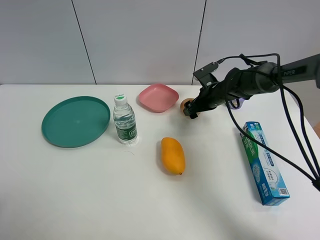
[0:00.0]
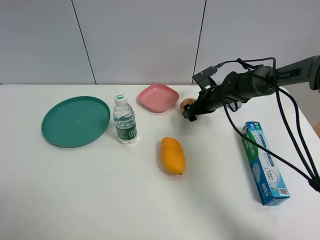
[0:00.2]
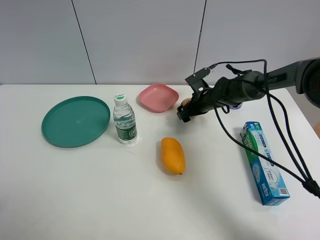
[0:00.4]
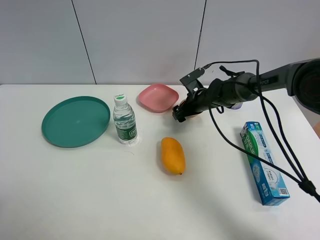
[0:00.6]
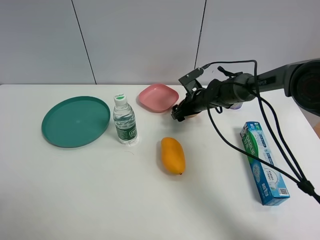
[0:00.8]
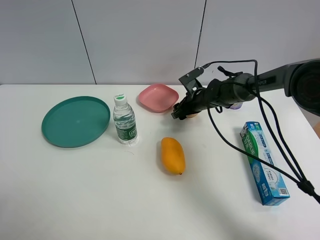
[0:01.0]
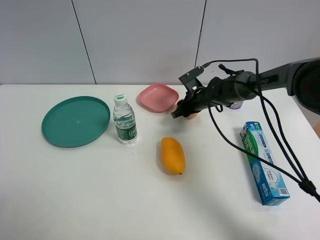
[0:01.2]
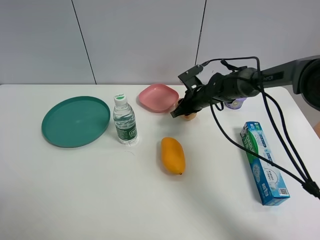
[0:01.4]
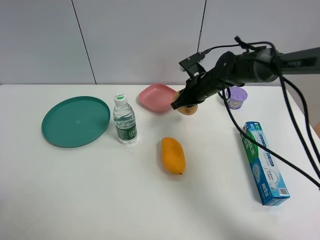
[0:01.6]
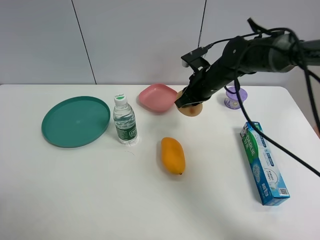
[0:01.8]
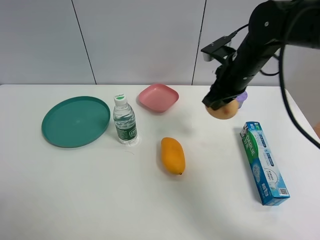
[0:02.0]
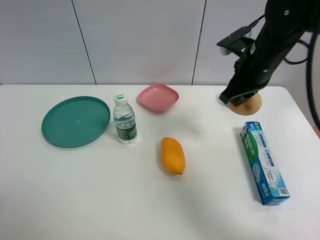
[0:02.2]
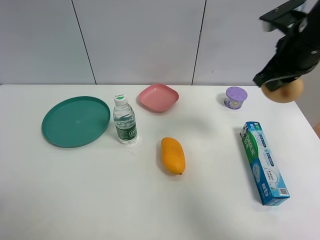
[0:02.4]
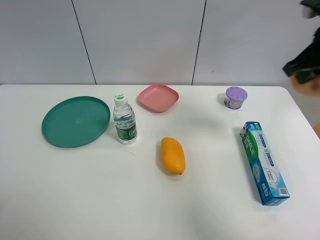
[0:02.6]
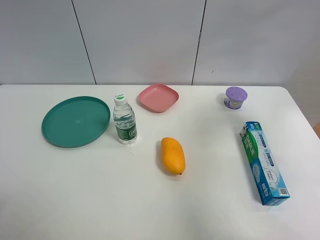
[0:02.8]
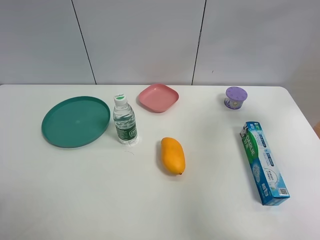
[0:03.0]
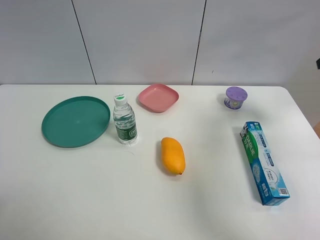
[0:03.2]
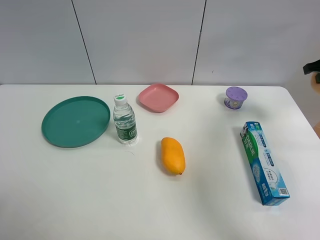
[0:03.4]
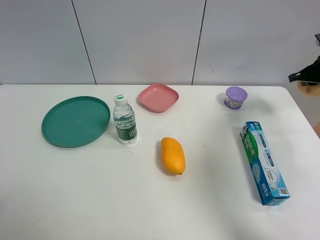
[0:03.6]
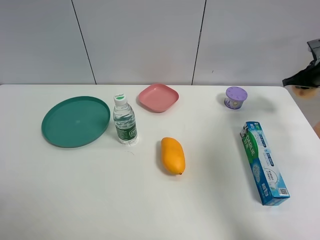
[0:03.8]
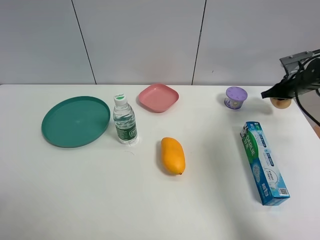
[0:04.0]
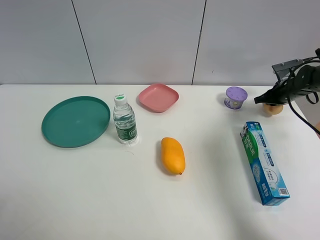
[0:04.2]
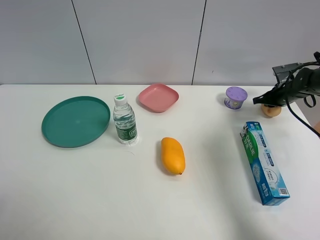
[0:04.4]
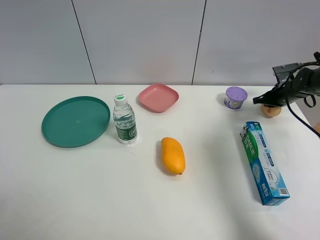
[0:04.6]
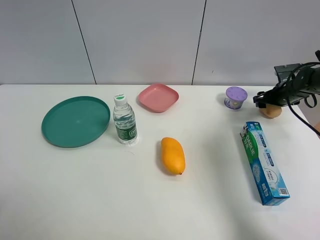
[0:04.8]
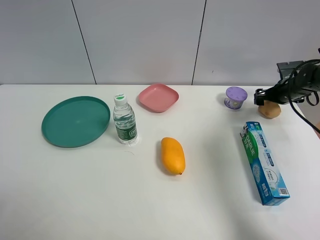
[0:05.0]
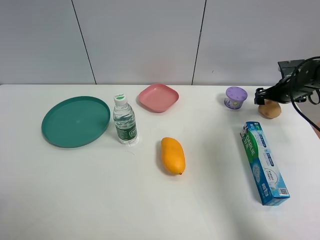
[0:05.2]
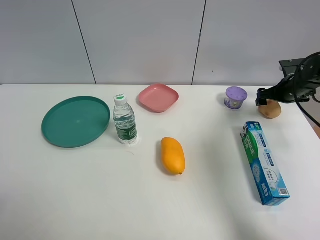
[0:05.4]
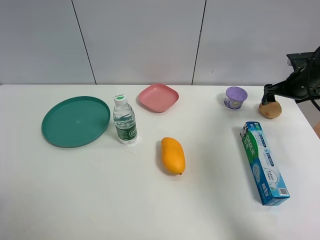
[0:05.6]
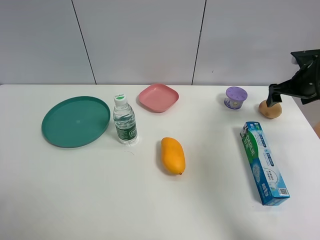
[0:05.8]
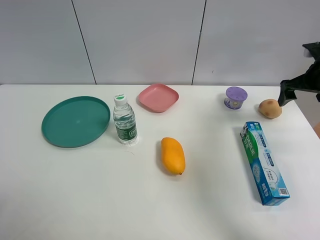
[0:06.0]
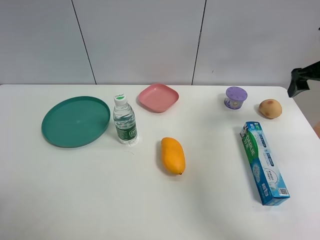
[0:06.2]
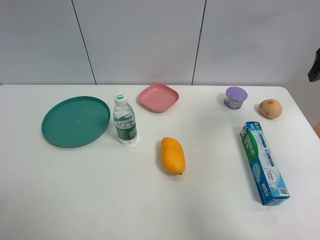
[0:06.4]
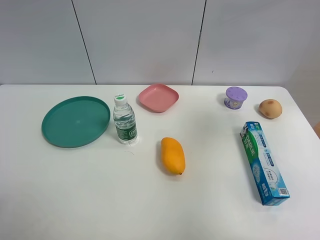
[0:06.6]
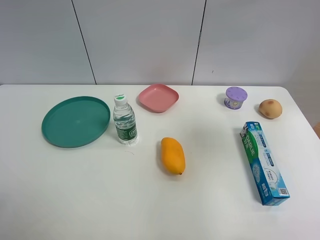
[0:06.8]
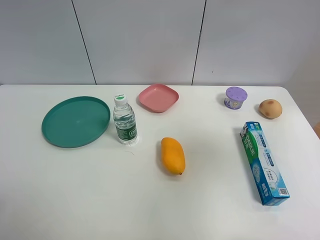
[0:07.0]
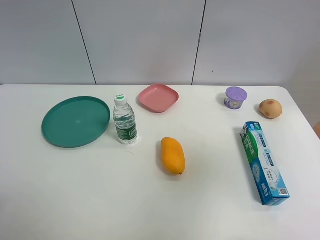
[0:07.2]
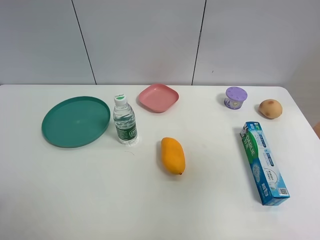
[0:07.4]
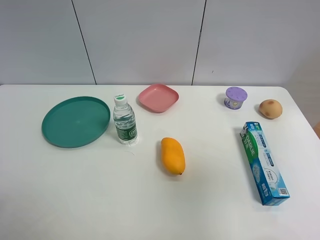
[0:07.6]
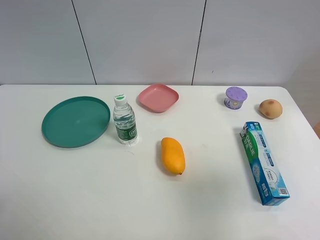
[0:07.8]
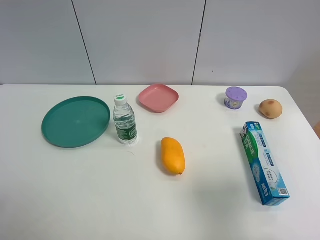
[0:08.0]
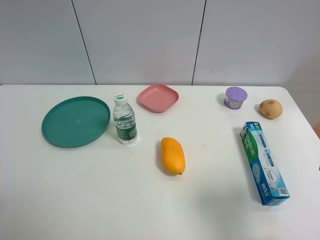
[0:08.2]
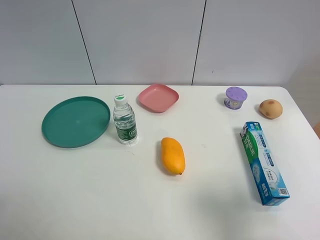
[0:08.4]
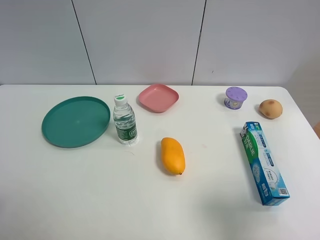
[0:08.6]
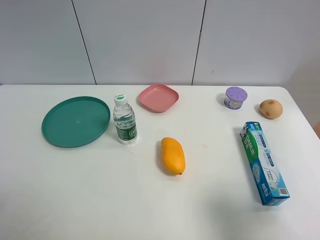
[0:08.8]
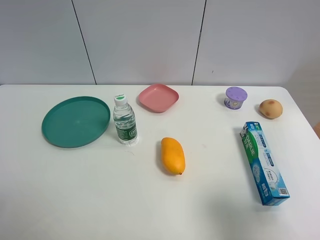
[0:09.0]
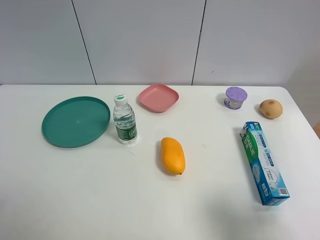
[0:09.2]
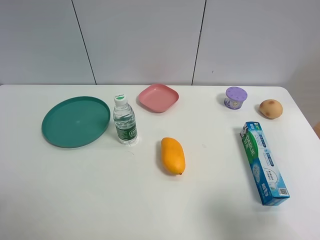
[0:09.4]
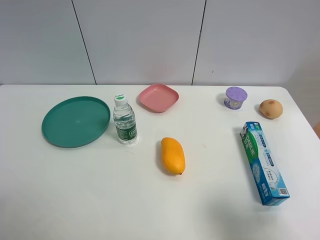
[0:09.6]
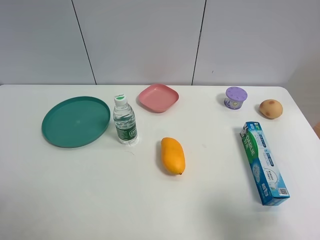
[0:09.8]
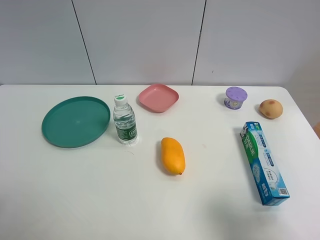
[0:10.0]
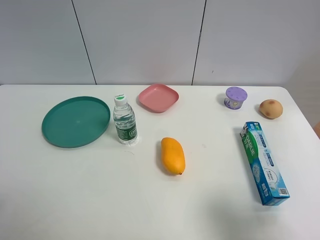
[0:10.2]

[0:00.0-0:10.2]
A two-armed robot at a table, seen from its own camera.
Task of the whole recording: the gripper move the object.
Step, 0:01.2 to 0:05.2: Place the egg yolk pastry on the table with the right gripper.
0:00.0 to 0:01.4: The right gripper closes its fingers.
0:01.4 to 0:03.0: The right gripper travels to the right, upward and backward by roughly 40 cm.
0:03.0 to 0:04.4: The right gripper is displaced downward and forward by approximately 30 cm.
0:04.4 to 0:05.8: The right gripper moves upward and backward, approximately 10 cm, and opens.
0:05.8 to 0:07.2: The right gripper travels backward and upward by about 40 cm.
0:07.2 to 0:08.8: The right gripper shifts approximately 20 cm downward.
0:08.8 to 0:10.2: Neither gripper changes place.
